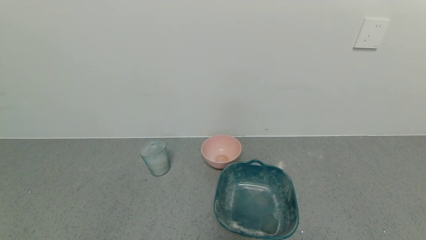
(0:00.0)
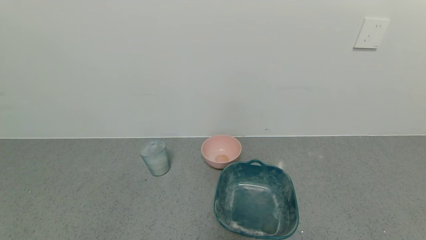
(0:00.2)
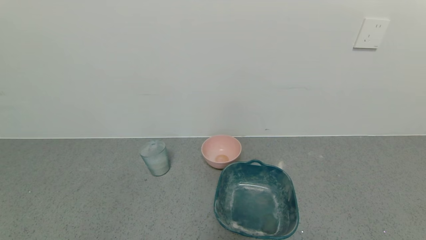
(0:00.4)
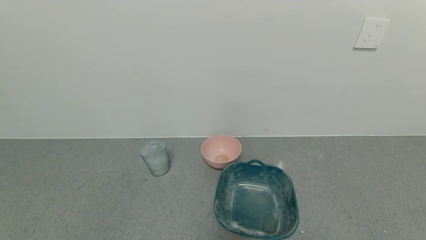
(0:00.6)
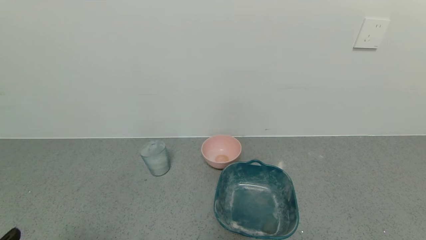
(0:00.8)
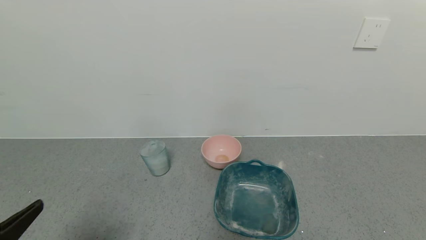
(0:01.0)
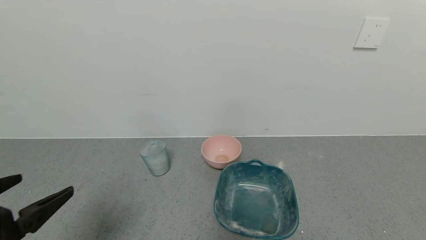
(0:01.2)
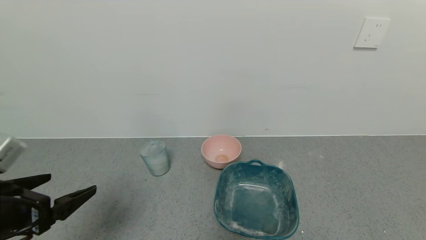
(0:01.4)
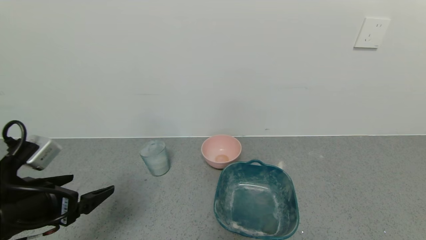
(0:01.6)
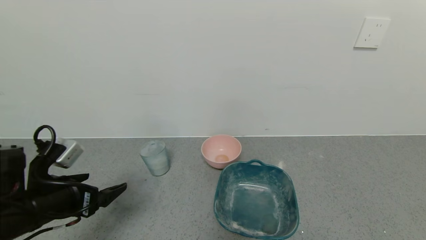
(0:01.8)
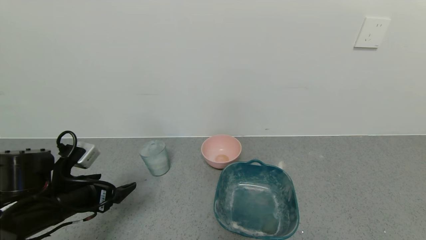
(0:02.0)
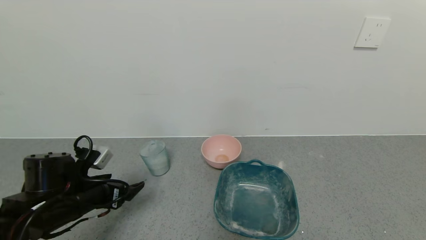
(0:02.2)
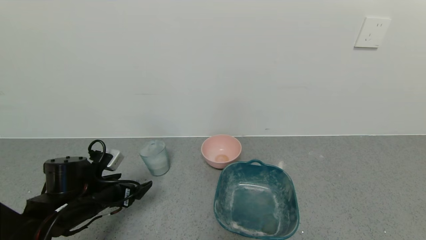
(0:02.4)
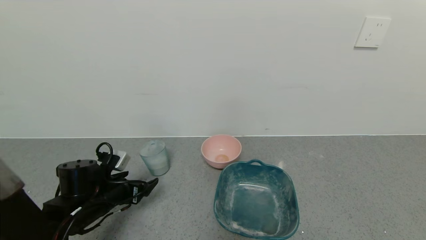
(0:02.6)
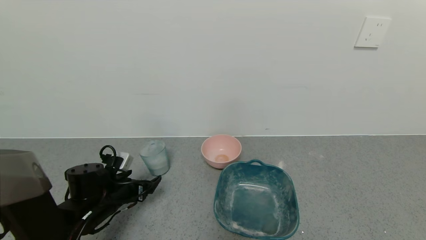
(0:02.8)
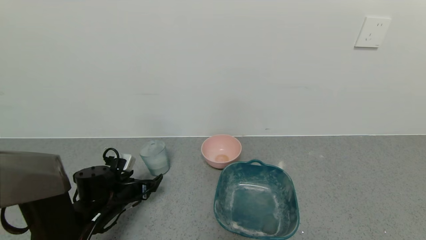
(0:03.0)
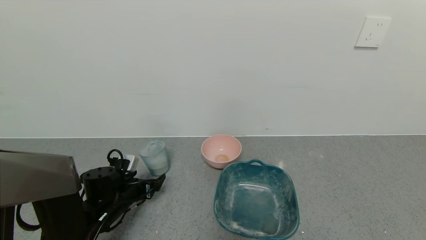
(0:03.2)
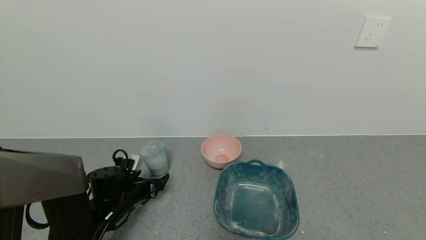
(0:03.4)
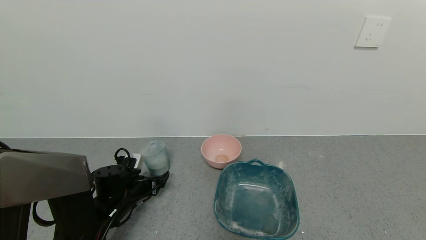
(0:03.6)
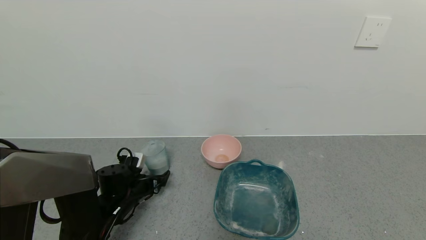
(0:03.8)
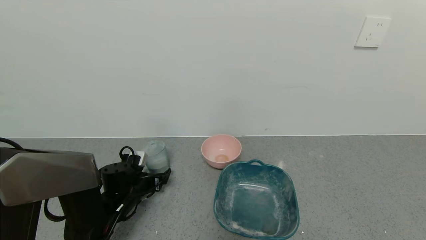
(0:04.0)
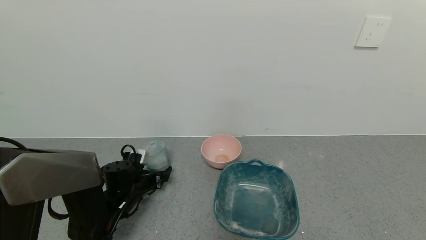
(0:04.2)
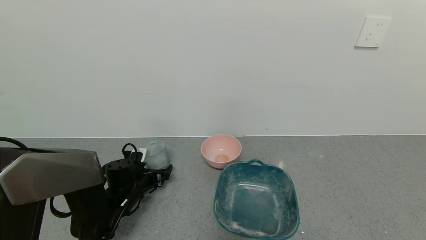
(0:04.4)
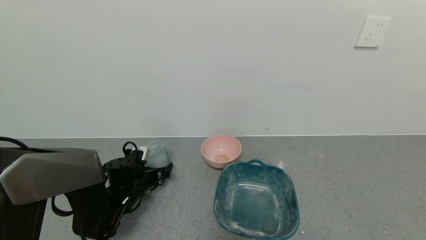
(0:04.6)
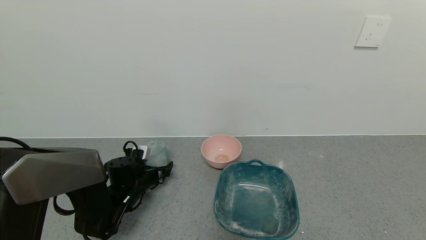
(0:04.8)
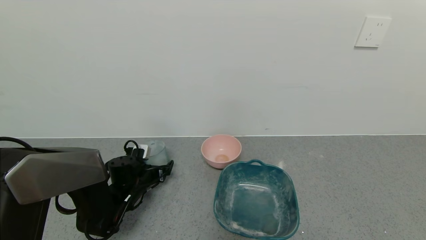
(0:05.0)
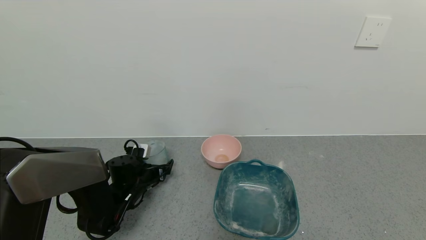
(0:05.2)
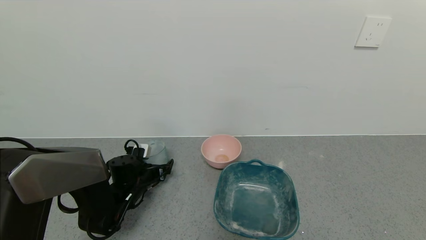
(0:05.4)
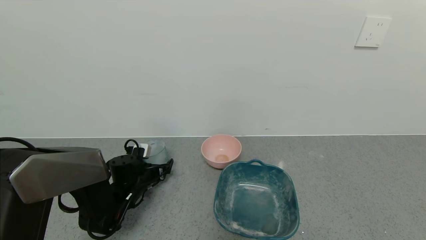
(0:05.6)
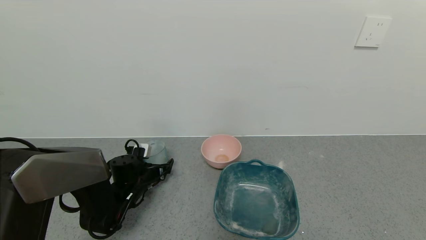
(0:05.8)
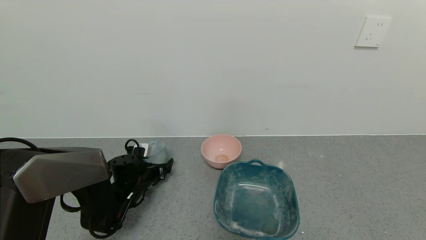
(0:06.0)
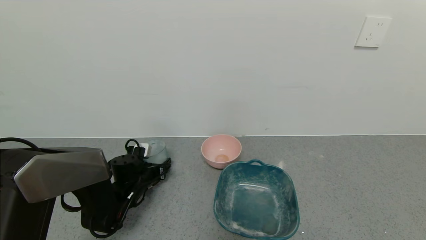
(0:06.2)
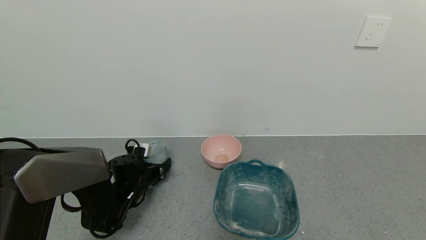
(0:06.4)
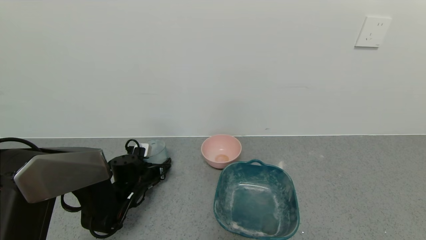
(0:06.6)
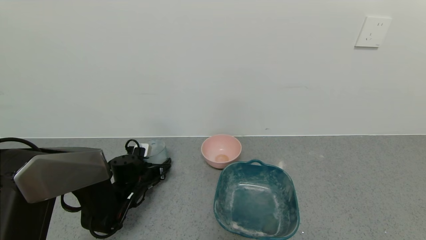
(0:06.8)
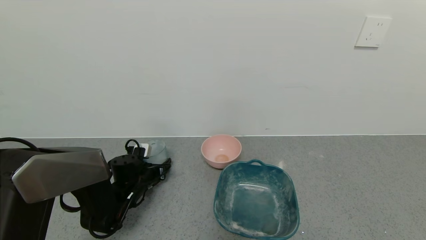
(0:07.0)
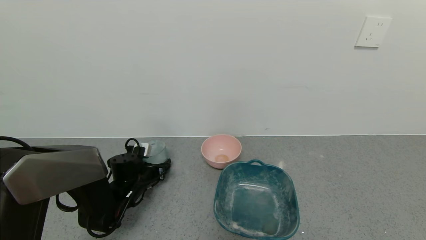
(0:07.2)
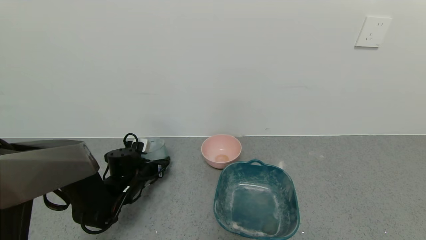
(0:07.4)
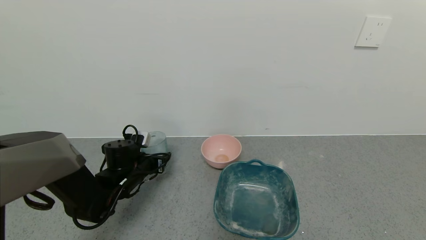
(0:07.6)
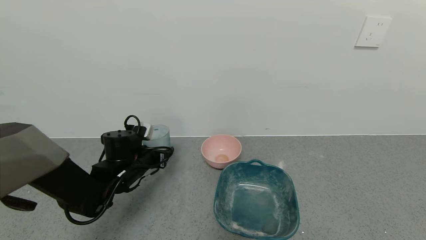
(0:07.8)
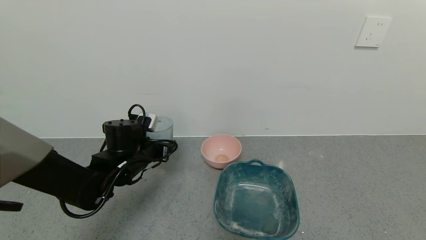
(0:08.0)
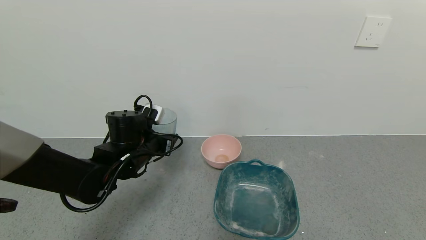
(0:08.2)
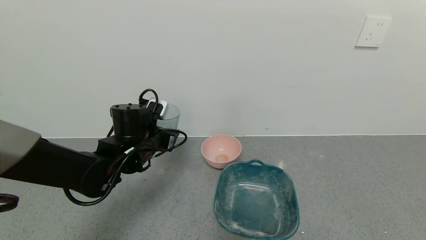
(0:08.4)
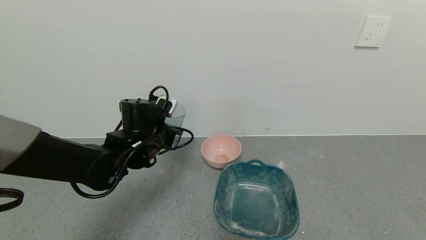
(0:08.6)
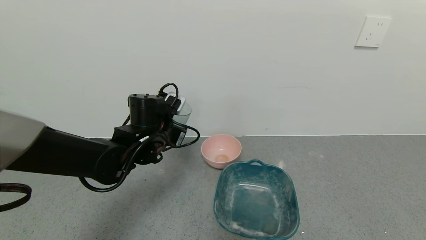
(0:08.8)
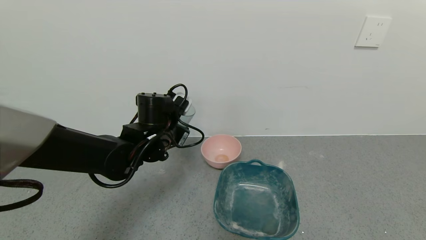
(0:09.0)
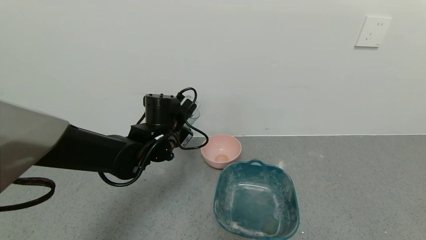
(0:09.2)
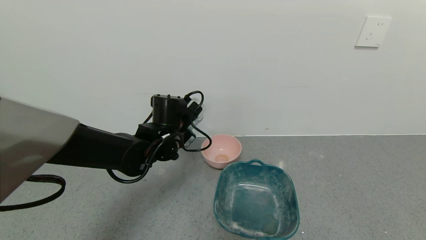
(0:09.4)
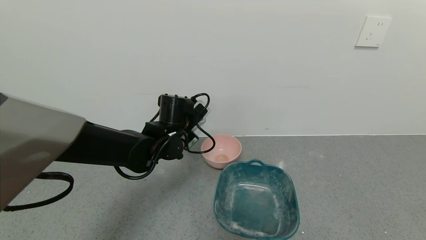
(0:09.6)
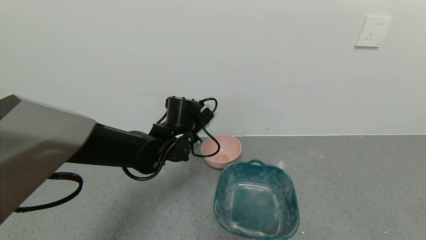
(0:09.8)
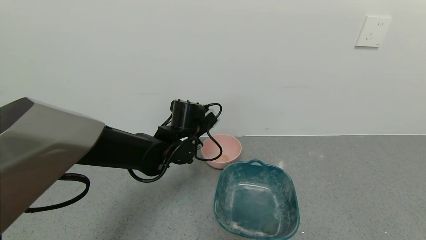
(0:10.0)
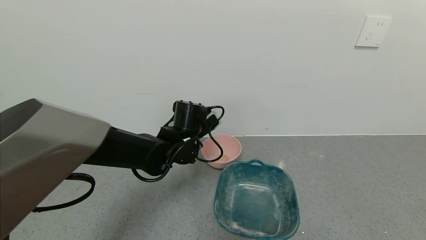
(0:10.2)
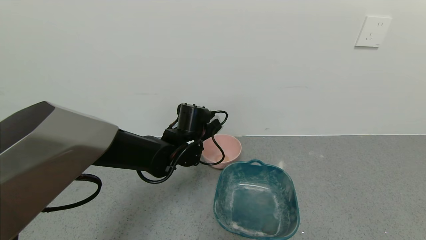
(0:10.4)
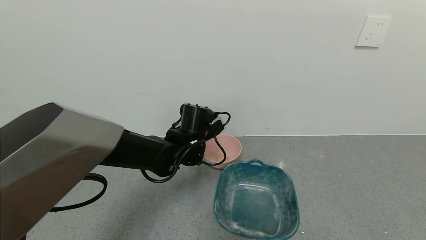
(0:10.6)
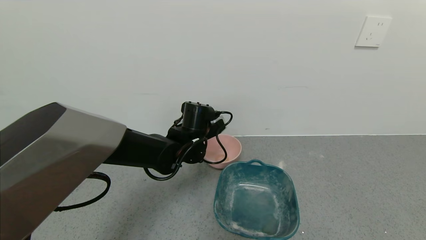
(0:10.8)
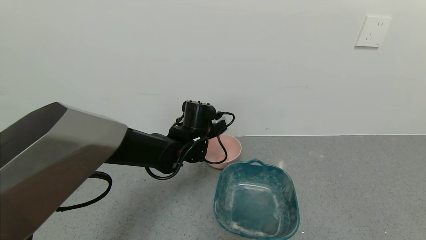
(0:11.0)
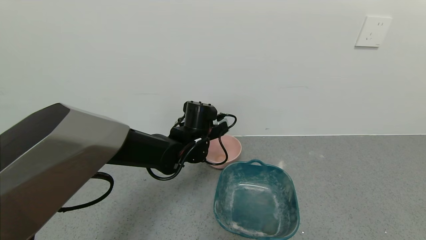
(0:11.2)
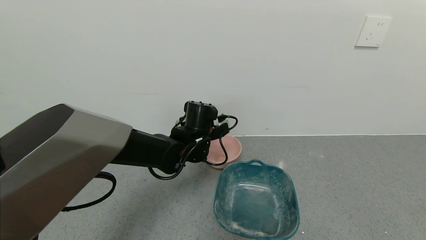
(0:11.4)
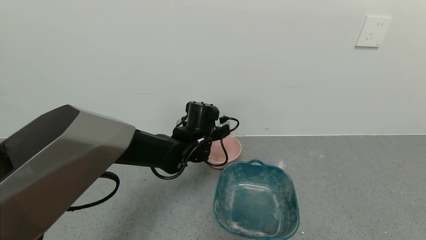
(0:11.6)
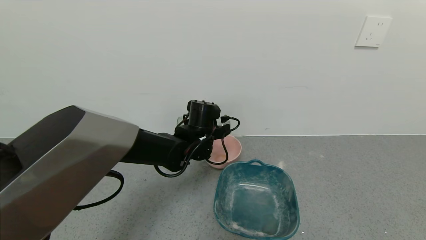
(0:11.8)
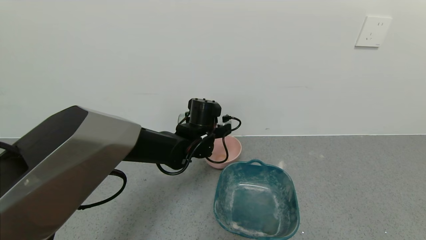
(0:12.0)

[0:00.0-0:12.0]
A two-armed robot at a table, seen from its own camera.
Task of the whole recording: use a gripper to pick up the cup and pour the powder into a bowl or tray.
Step, 0:00.0 to 0:06.6: Grasp the glass of powder with the left gripper.
0:00.0 to 0:01.6: The left gripper goes some 20 cm forward and upward.
0:01.6 to 0:03.0: The left gripper shifts approximately 20 cm downward and forward.
0:03.0 to 0:04.4: The left gripper is displaced forward by roughly 5 cm.
0:04.4 to 0:06.0: The grippers stay close to where they were, moving slightly.
0:06.0 to 0:07.6: The left gripper goes about 5 cm upward, and closes up.
0:07.6 to 0:09.0: The left gripper heads upward and to the right, covering some 15 cm.
0:09.0 to 0:10.4: The left gripper heads to the right, covering roughly 5 cm.

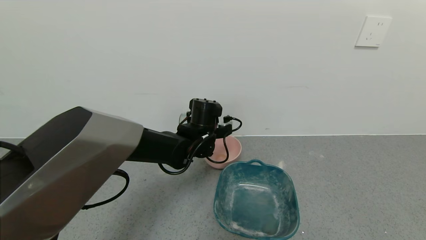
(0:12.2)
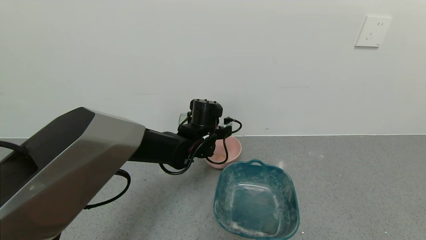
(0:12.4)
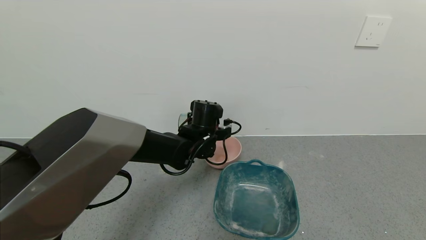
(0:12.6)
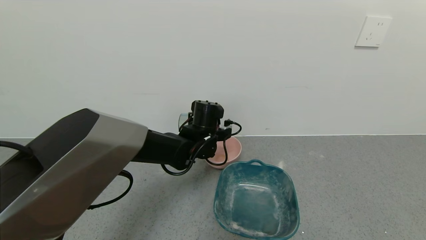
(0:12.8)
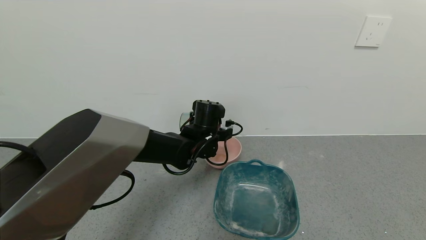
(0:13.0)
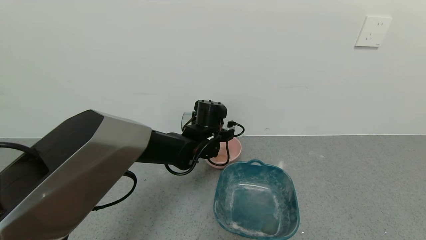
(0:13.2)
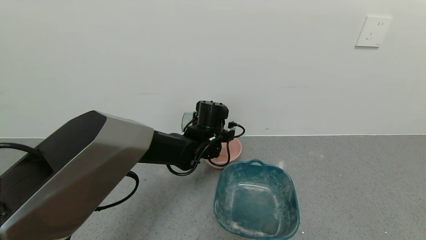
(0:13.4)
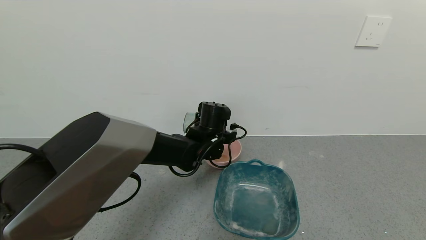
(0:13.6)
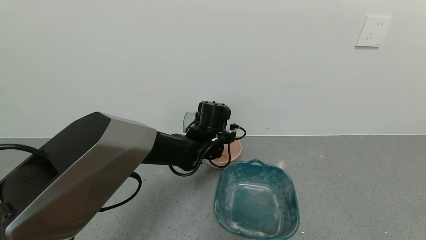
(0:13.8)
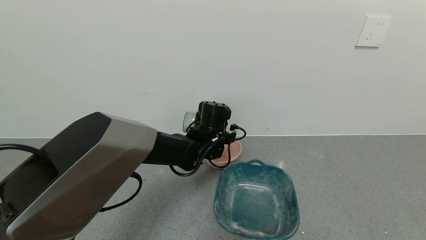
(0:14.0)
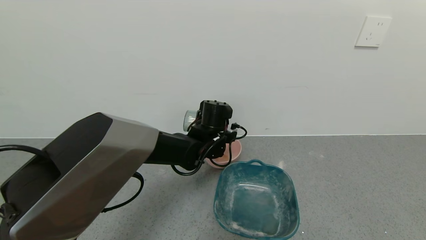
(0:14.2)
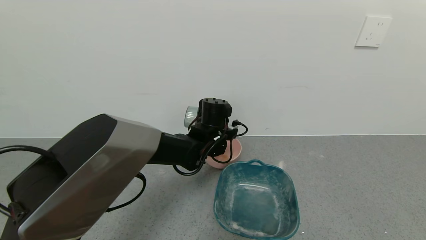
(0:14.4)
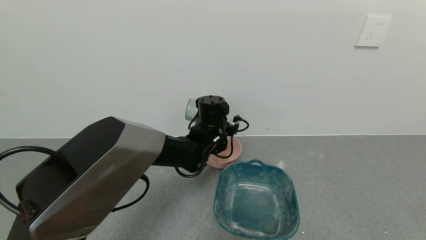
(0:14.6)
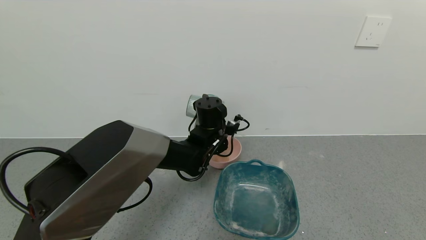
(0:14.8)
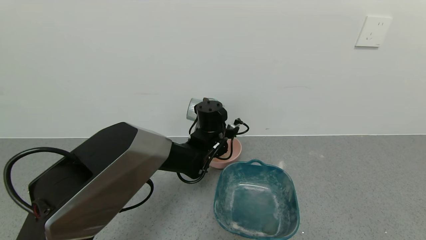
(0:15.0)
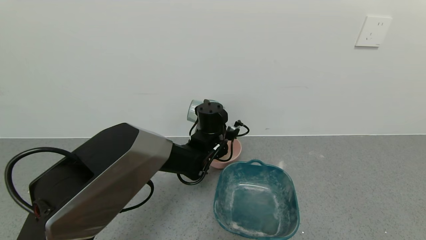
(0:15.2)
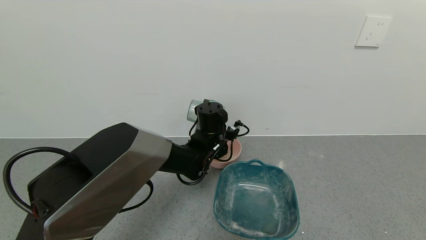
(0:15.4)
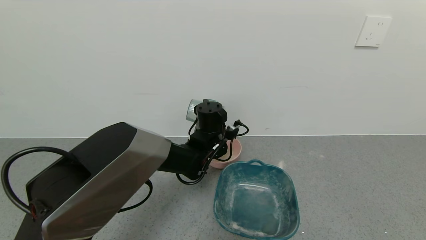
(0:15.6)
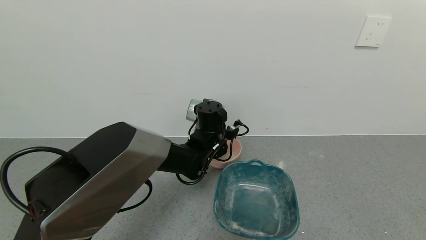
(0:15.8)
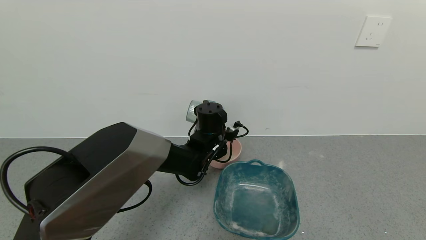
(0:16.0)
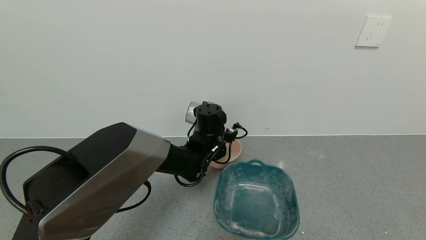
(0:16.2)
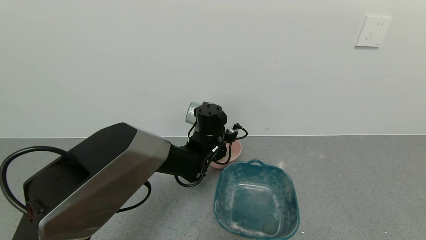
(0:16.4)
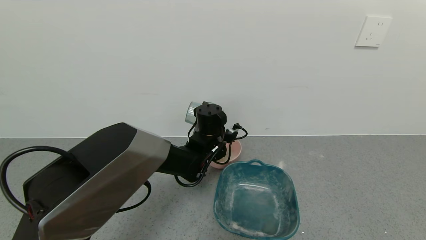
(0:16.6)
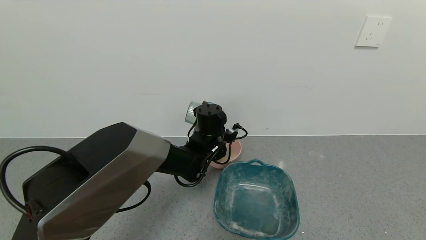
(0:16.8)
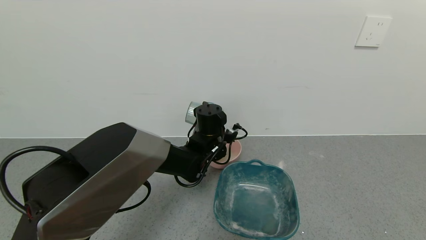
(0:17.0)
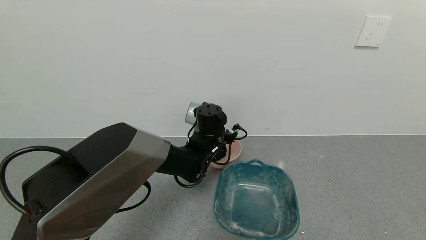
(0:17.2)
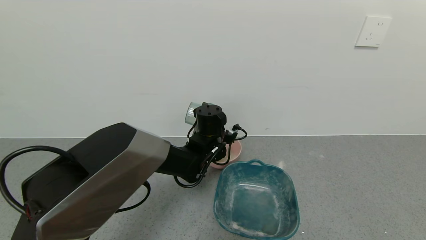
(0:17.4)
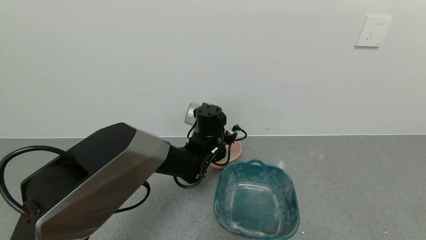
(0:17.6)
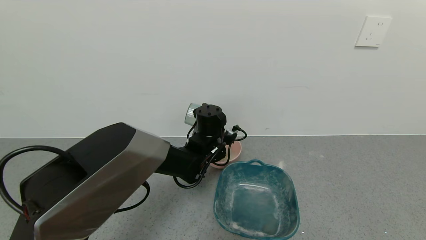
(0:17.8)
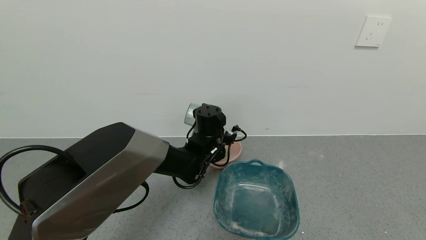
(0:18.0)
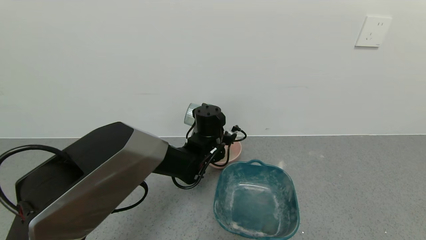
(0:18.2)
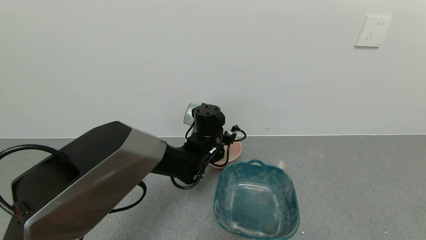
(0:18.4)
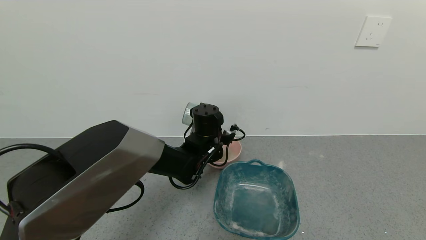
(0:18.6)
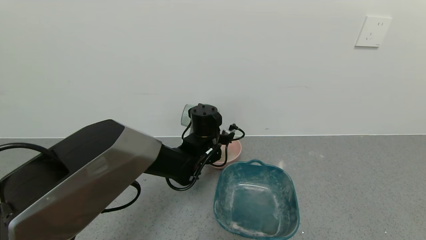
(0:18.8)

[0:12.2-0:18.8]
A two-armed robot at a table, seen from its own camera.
Task of the whole recording: use a gripper to pick up the cup and pour the powder into a bowl or tray.
0:12.2 to 0:13.8: There are only small adjustments of the grippers.
0:13.8 to 0:15.4: The grippers move only a little.
0:15.4 to 0:17.2: The two grippers keep their place.
0:17.2 to 0:18.8: The grippers move only a little.
